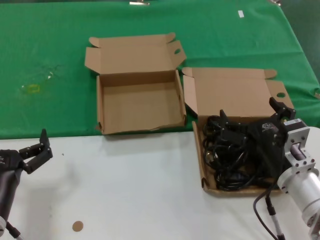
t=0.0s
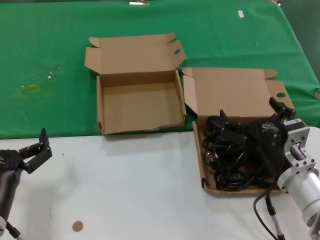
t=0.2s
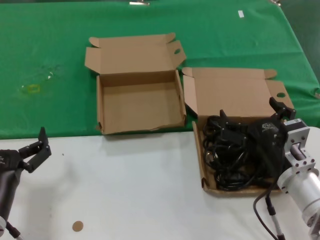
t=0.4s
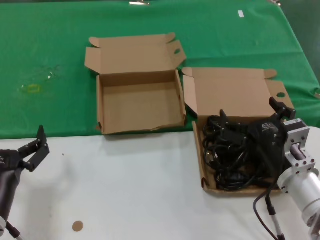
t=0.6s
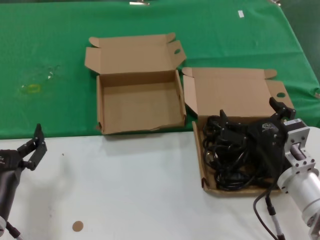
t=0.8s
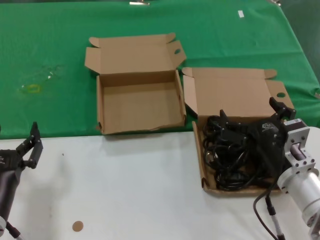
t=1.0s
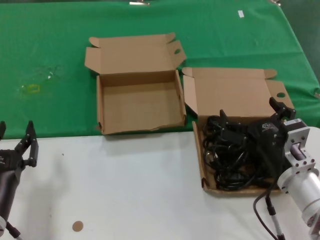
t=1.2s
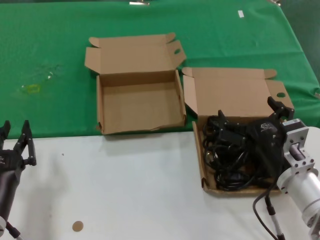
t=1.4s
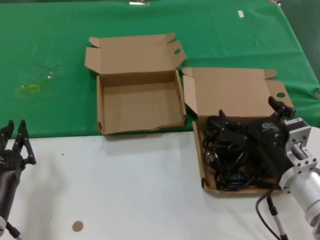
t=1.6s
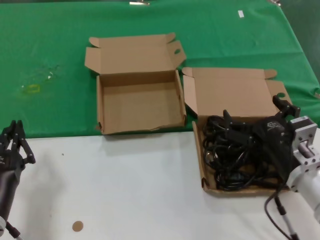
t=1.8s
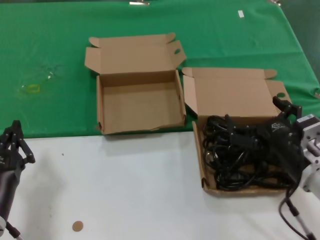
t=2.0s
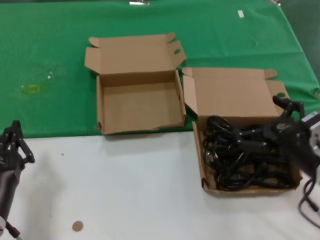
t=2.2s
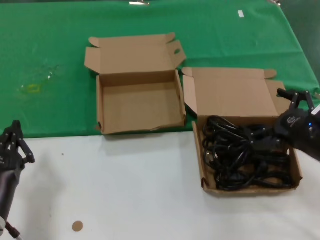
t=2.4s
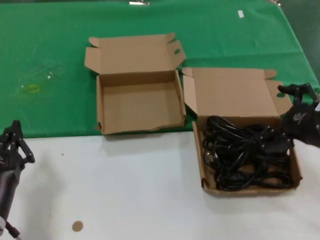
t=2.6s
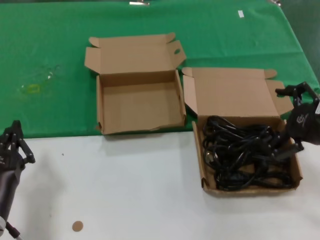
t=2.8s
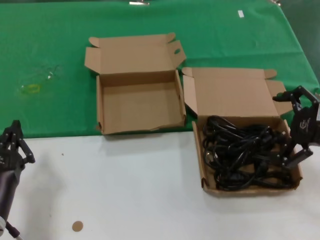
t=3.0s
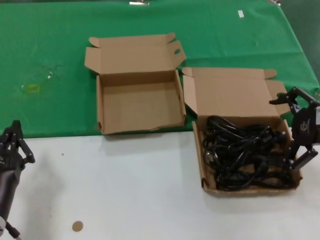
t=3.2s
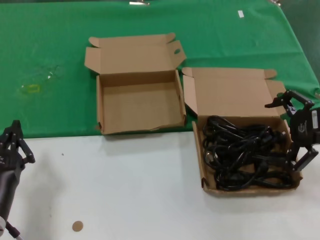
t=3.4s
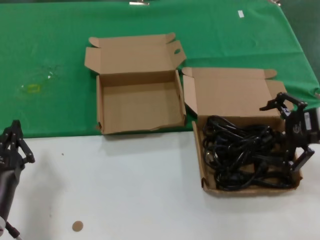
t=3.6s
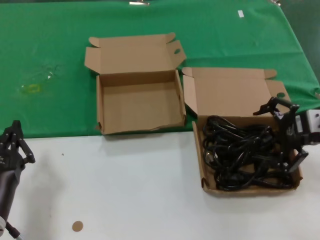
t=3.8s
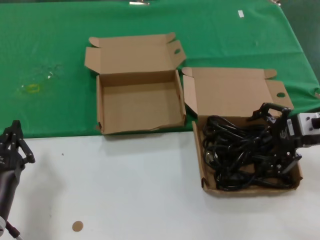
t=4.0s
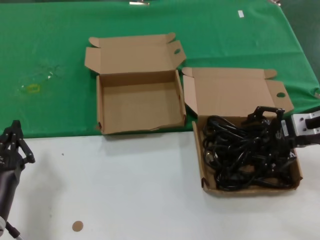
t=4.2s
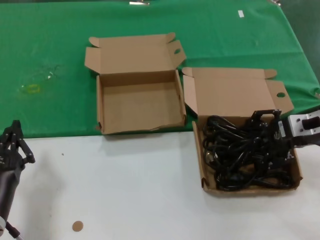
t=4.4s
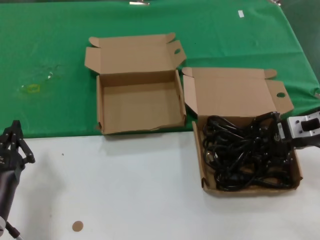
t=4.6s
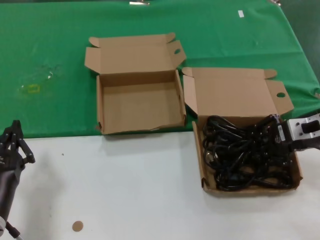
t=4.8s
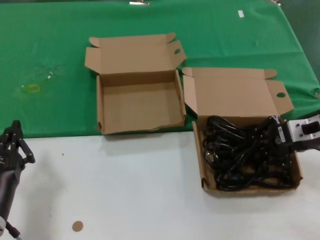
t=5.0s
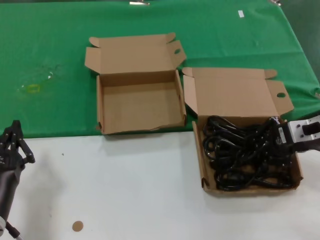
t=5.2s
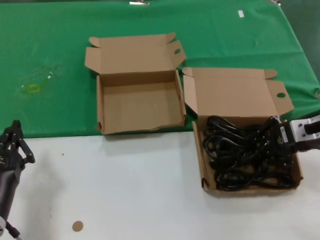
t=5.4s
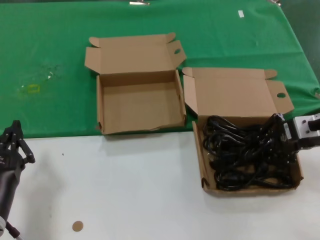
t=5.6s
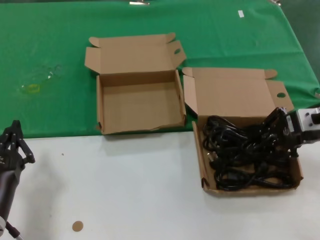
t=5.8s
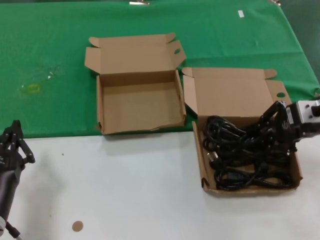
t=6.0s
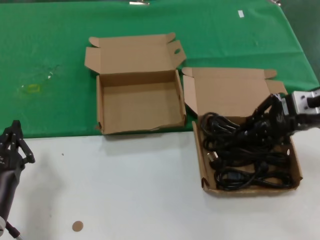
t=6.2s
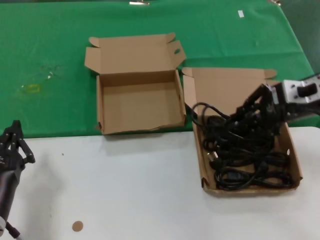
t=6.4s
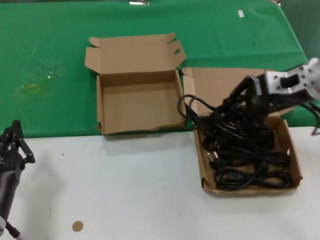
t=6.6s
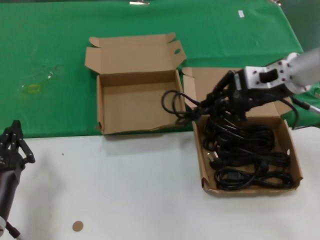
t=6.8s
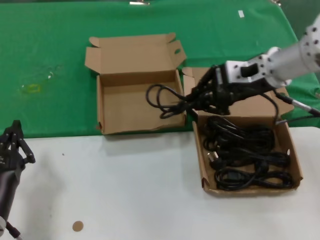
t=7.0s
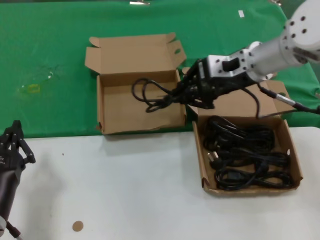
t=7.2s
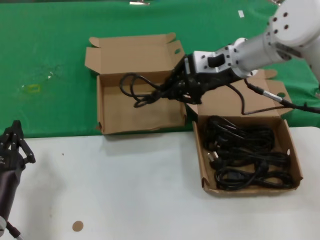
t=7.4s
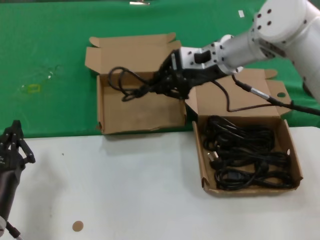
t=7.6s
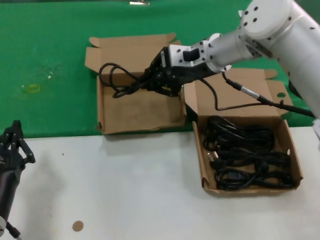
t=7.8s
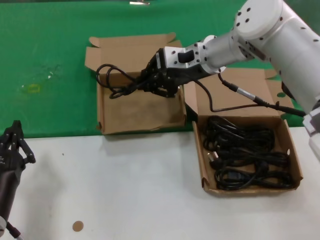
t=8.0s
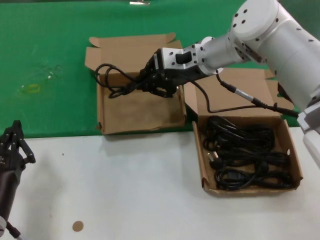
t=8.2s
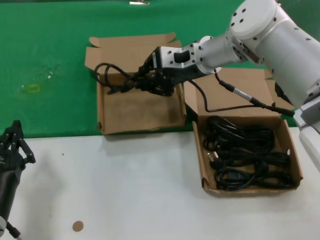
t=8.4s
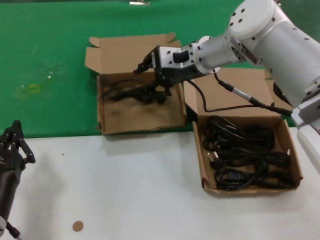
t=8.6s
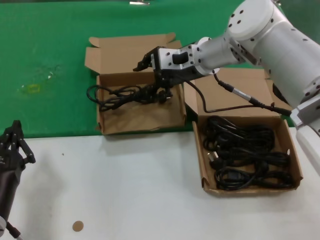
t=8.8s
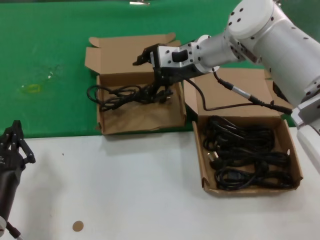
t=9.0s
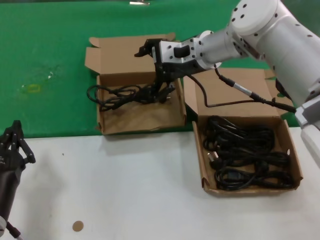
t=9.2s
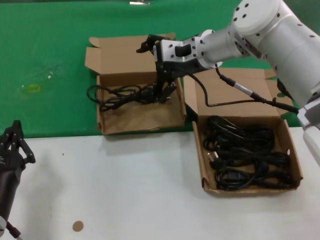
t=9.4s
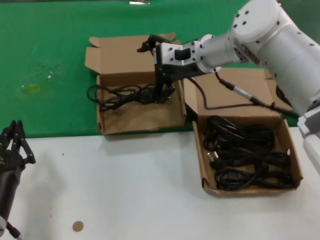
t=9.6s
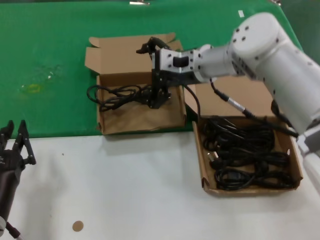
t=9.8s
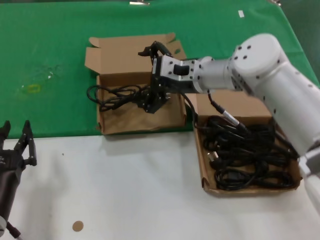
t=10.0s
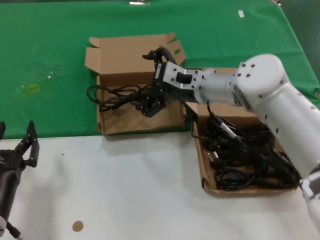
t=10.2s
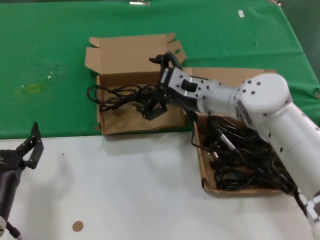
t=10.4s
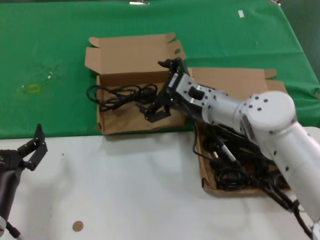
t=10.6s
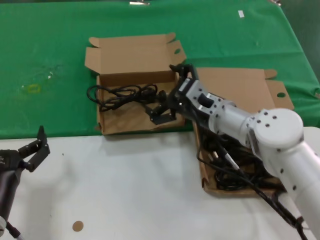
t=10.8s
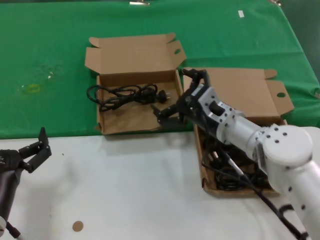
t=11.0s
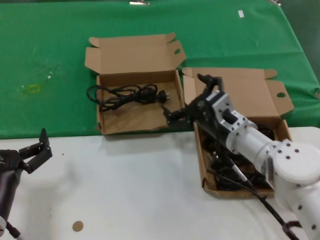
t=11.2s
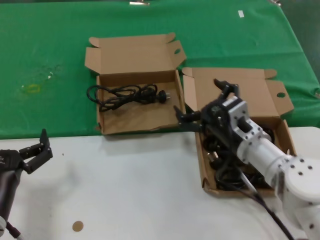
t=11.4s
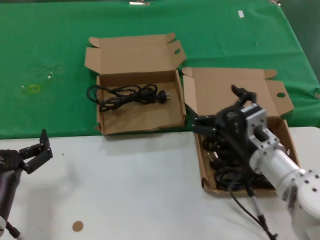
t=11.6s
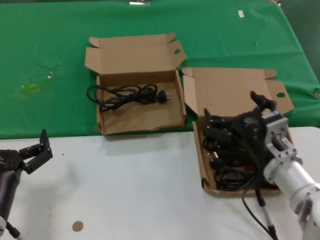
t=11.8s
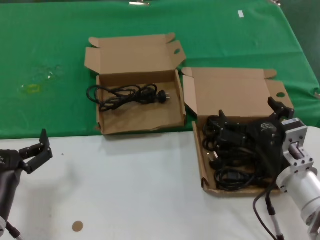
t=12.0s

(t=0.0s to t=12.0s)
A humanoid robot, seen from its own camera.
Task of the whole recording: take the parts from the box containing them and put them into an empty box.
Step, t=0.0s - t=5.0s: Grasp the data cable.
Step, t=5.4s - t=8.8s: Place the data cable in the another box.
t=0.0s - t=1.6s: The two hands keep their place.
t=1.6s - t=3.0s: The right hand heads to the right and upward, covering roughly 20 cm.
t=3.0s - t=4.4s: The right hand travels forward by roughly 10 cm.
t=4.4s - t=6.0s: There are only small adjustments of the hands.
t=6.0s - t=7.6s: The right hand is displaced to the left and forward by approximately 20 cm.
t=7.6s - t=9.0s: The hands stay close to where they were, moving slightly.
t=9.0s - t=10.4s: The right hand goes approximately 10 cm downward.
t=10.4s - t=12.0s: The right hand shifts some 25 cm backward, downward and to the right.

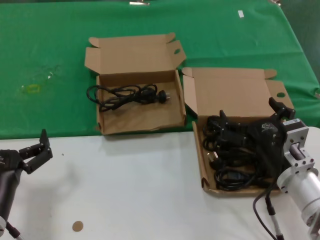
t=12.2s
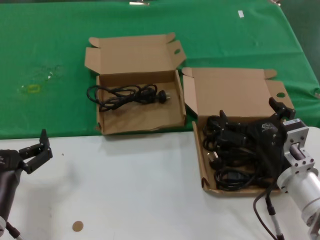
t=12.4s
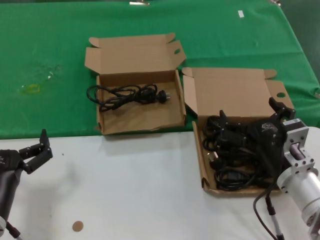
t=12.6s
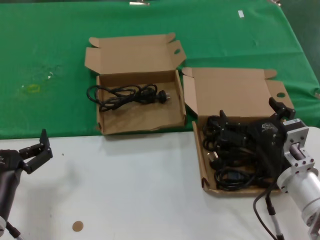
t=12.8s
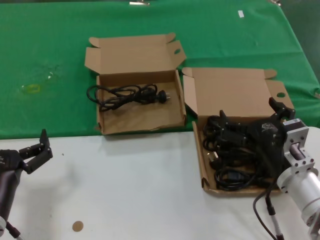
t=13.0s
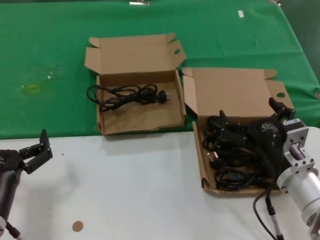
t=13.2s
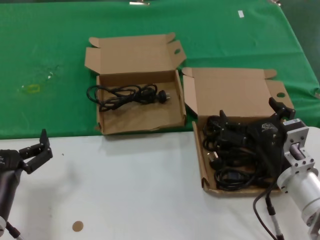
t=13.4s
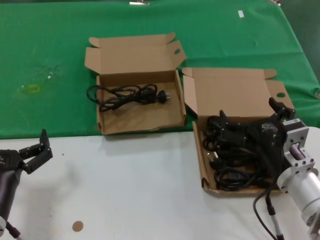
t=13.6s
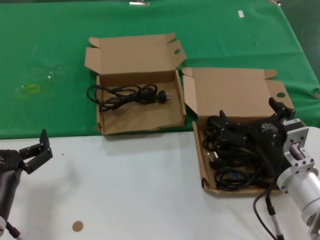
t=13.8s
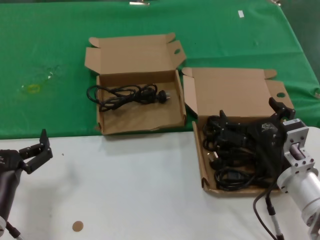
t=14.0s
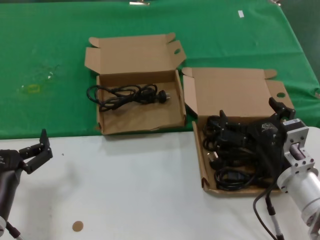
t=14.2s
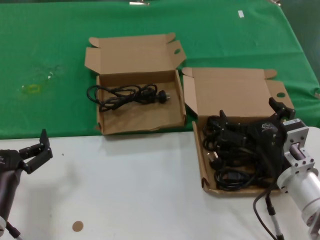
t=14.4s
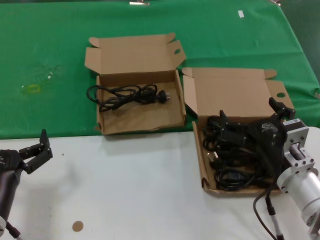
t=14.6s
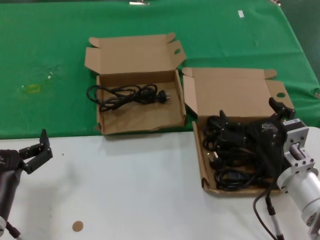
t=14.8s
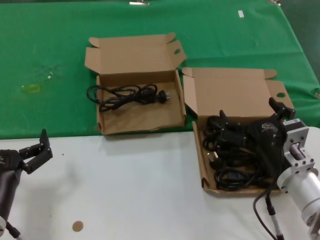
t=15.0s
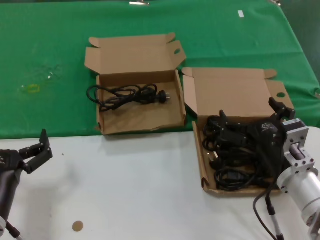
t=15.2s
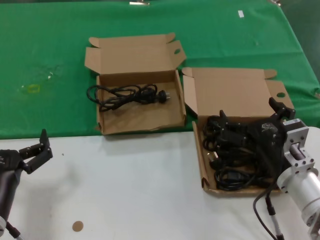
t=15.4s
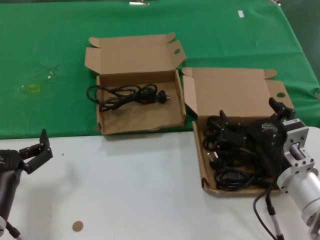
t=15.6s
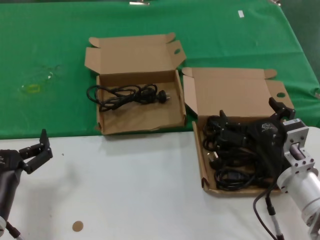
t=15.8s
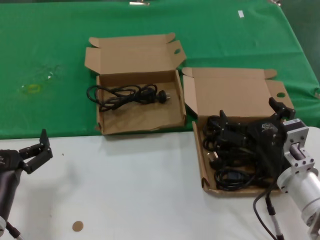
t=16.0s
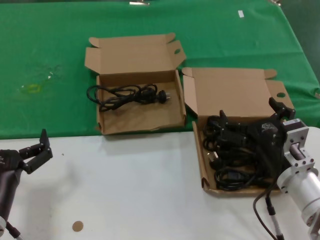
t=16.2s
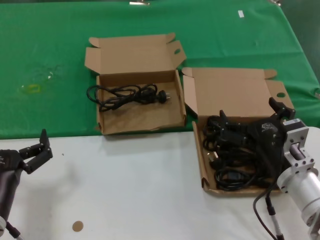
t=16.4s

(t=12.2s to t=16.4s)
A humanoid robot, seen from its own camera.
Task of the whole recording: take the parts from the box containing them and put them into an empty box.
t=12.2s - t=16.4s: Both hands stay put.

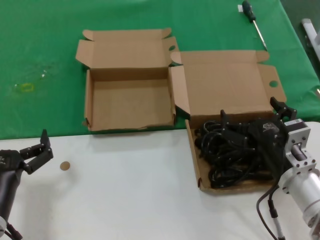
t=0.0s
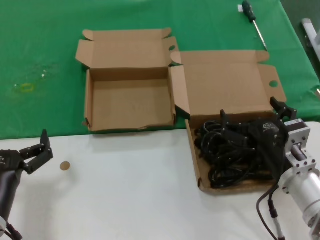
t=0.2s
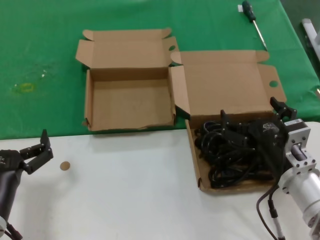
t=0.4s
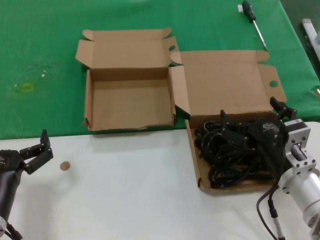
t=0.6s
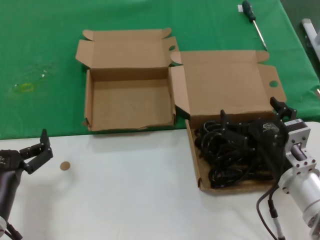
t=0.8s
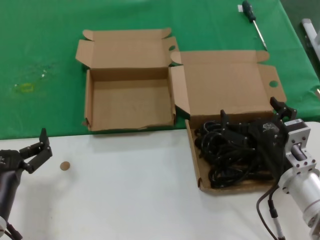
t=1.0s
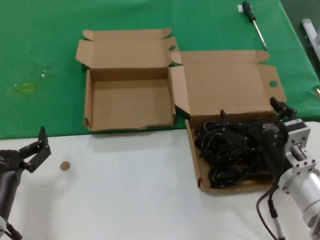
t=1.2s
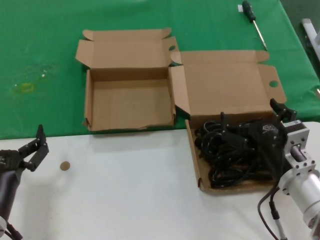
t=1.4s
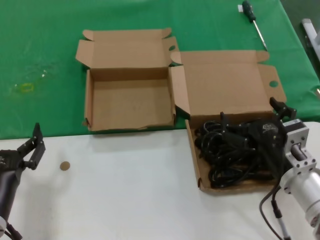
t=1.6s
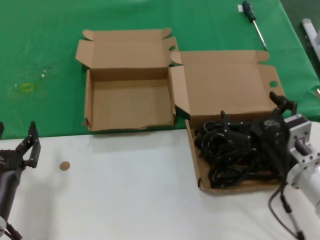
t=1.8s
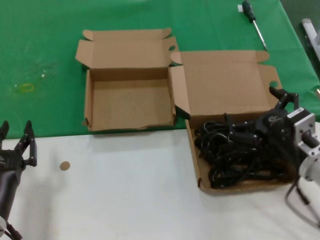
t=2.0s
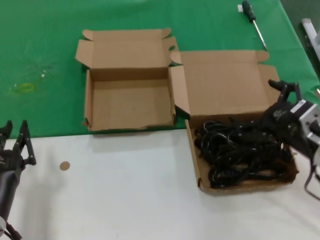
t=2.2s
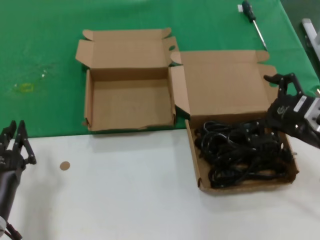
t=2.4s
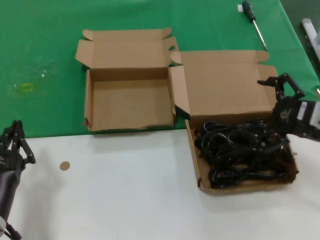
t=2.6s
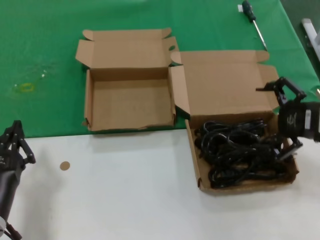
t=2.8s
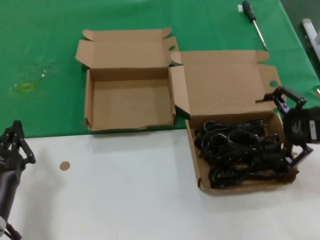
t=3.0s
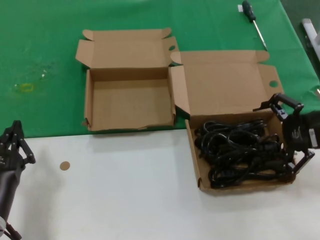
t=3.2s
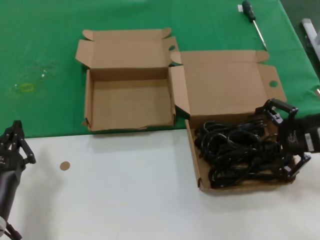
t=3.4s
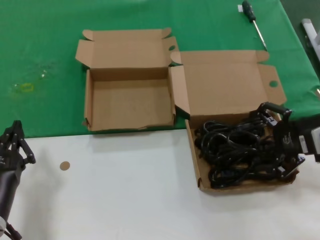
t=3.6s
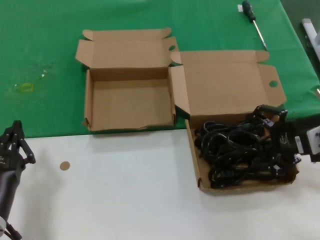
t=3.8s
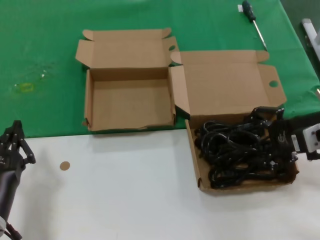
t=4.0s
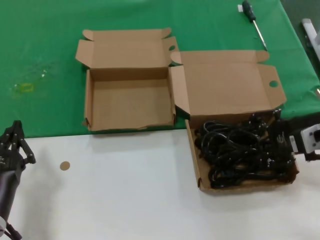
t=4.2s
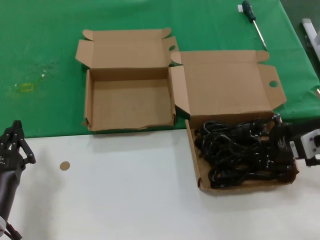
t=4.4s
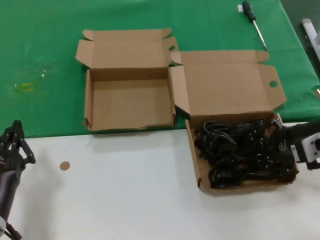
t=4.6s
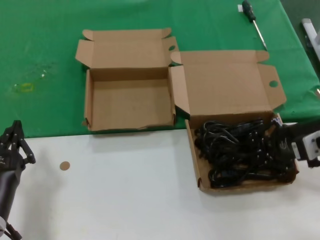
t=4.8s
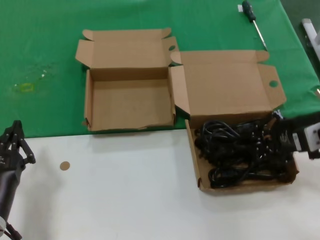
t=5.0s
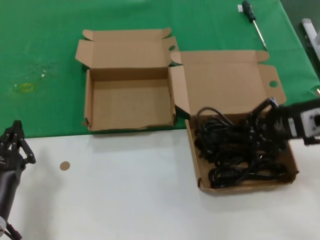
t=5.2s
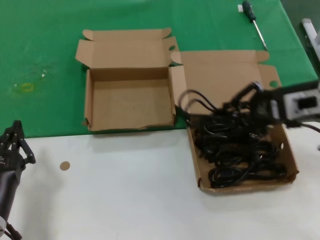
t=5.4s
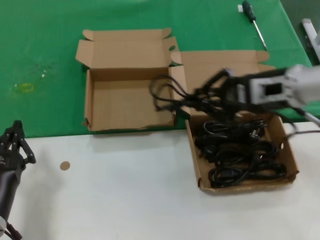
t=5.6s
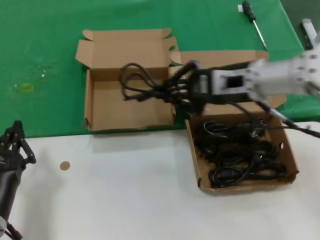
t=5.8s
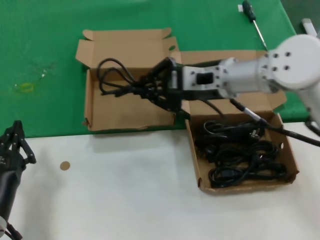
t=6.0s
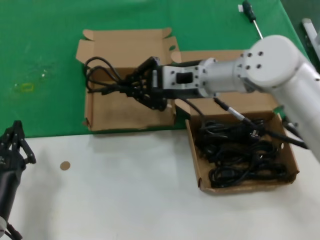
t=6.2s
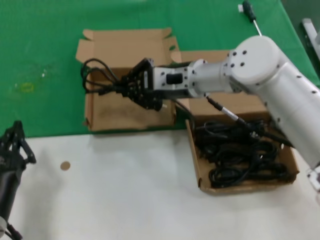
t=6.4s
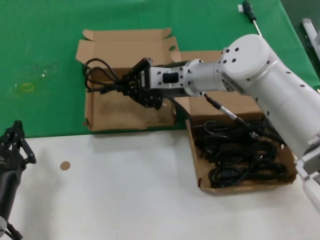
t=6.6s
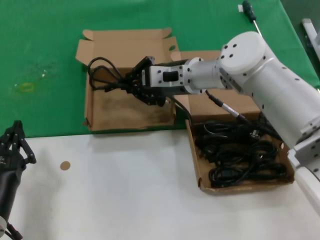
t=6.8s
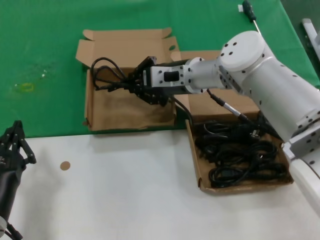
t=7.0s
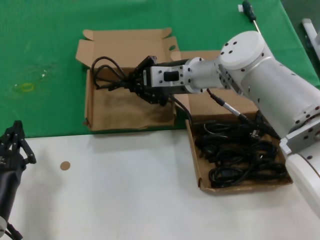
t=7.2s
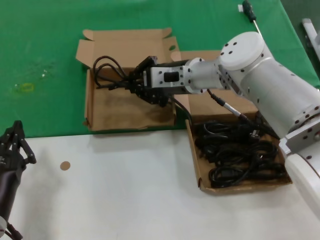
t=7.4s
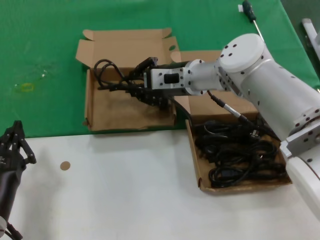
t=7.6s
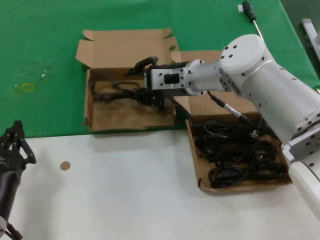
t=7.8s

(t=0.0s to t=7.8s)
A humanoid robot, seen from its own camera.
Task of the whole recording: take the parts from the box containing them and put them into an empty box.
Step, t=0.0s - t=4.8s: Grasp the data cable.
t=0.0s - t=1.6s: Both hands stay about where they are.
t=1.6s - t=3.2s: The right hand shifts roughly 20 cm upward, to the right and forward.
t=3.2s - t=4.6s: The hands move only a little.
t=4.6s - t=6.2s: The right hand goes approximately 25 cm to the left and forward.
t=6.2s - t=7.8s: The right hand is displaced forward by roughly 5 cm.
